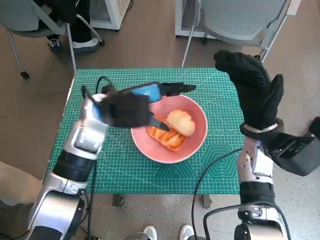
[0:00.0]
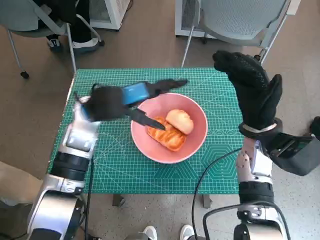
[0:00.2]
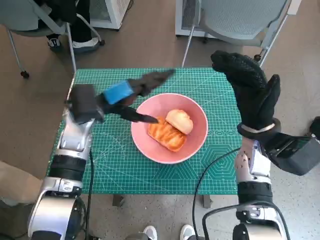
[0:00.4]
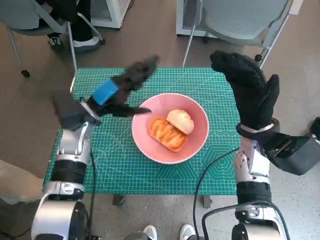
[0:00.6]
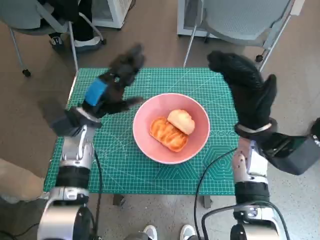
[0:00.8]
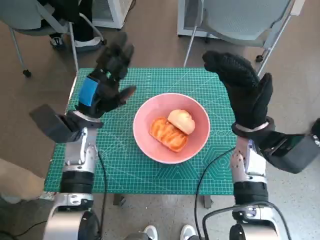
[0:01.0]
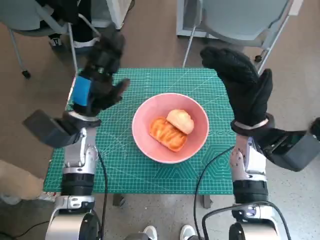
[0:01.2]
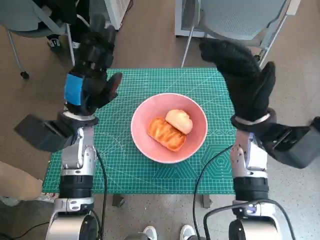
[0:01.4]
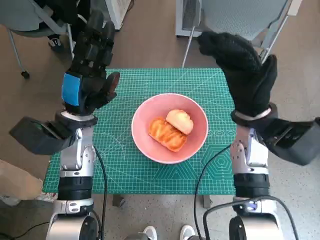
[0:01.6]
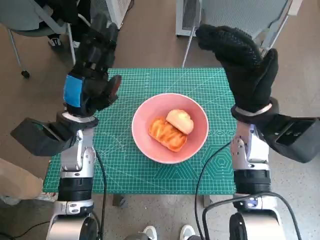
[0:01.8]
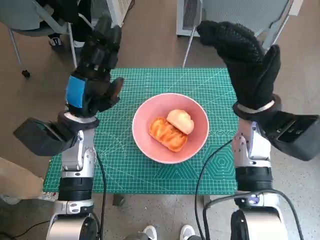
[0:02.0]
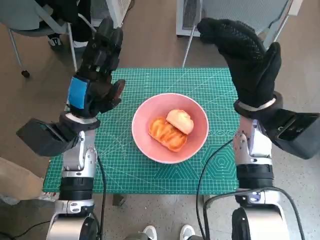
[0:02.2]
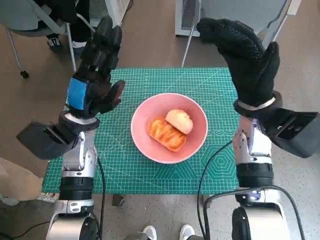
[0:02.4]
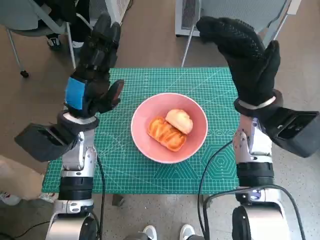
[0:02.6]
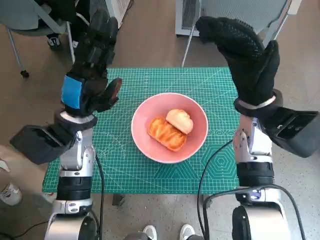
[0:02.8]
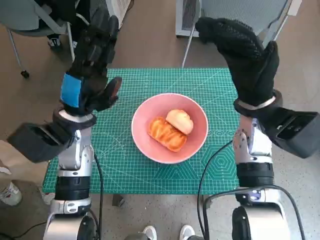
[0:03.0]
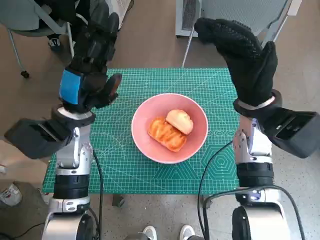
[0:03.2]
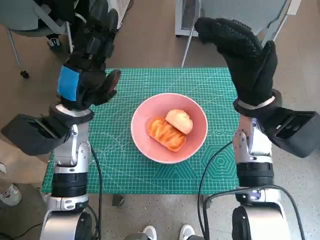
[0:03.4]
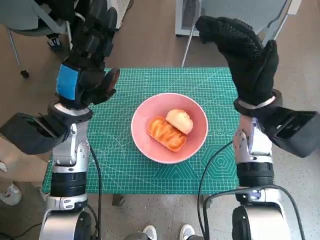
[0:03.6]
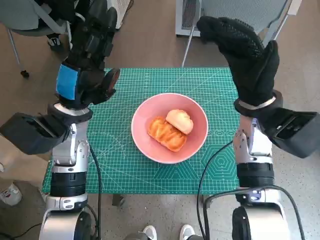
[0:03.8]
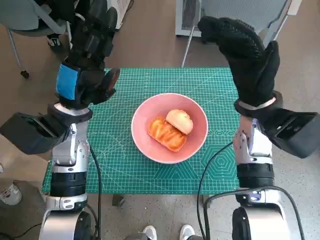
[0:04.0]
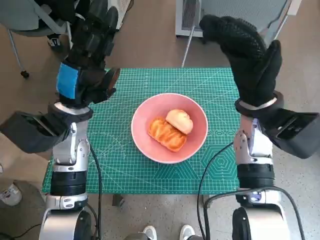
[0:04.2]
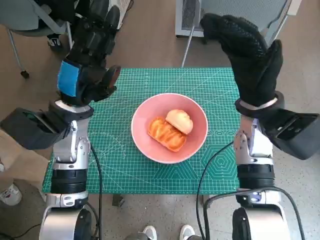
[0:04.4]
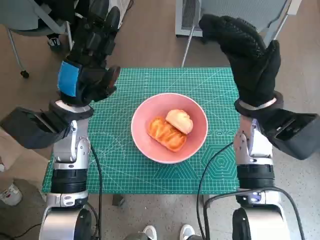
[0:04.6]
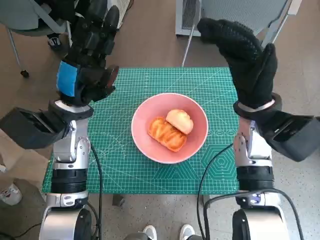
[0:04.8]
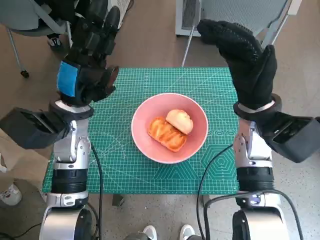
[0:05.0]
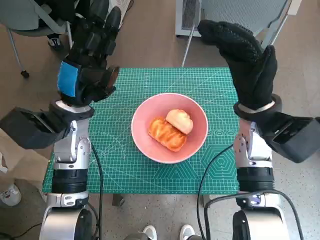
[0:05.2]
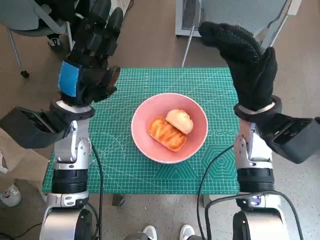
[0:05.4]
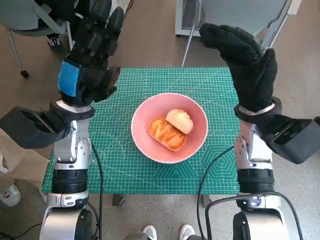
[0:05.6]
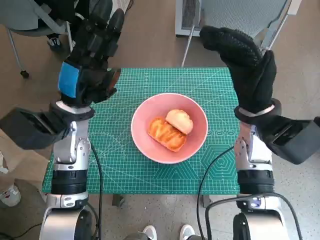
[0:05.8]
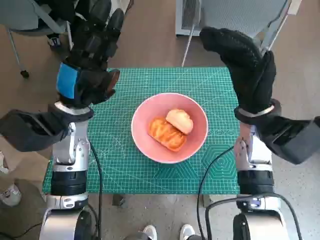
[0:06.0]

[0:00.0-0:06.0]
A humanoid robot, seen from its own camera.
0:00.0 to 0:01.6: The left hand moves to the left, some 5 cm.
0:01.6 to 0:06.0: There are only small adjustments of the hands.
